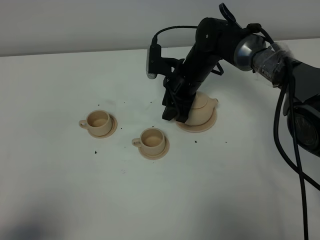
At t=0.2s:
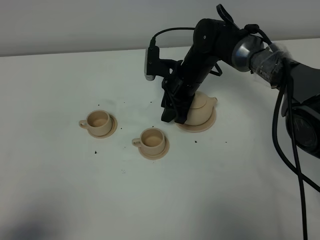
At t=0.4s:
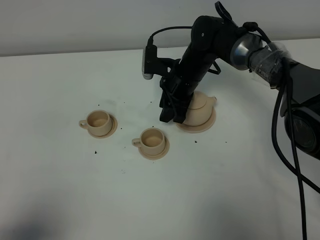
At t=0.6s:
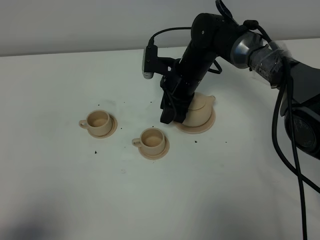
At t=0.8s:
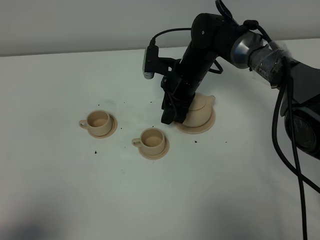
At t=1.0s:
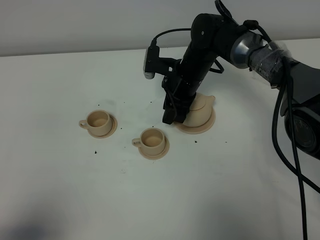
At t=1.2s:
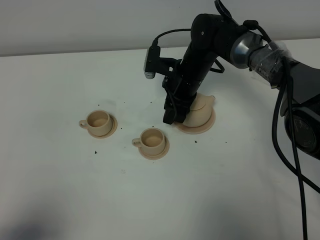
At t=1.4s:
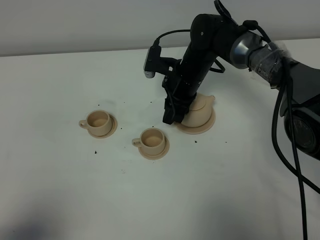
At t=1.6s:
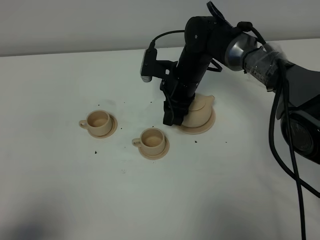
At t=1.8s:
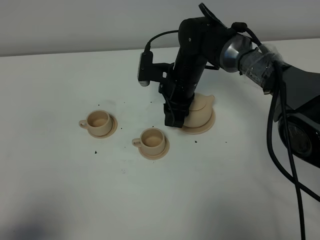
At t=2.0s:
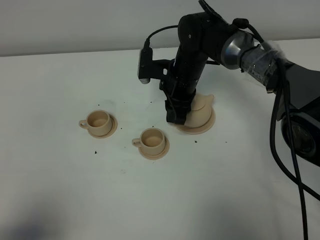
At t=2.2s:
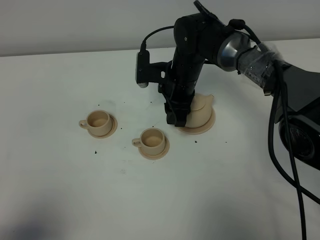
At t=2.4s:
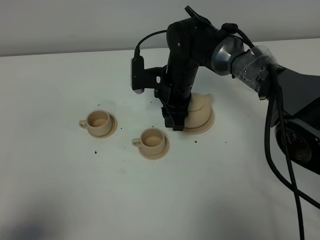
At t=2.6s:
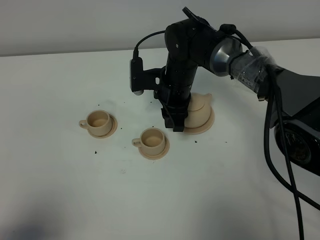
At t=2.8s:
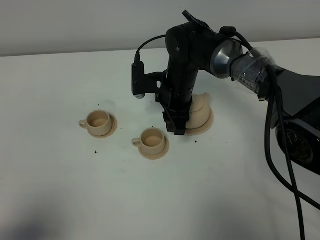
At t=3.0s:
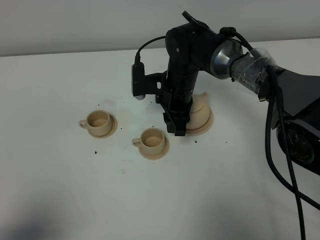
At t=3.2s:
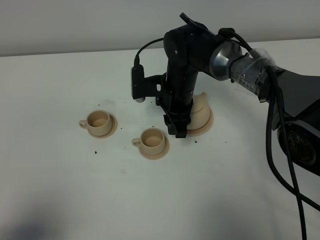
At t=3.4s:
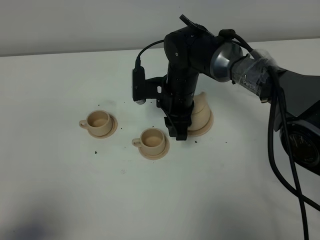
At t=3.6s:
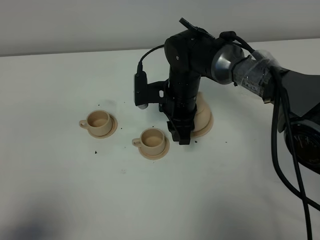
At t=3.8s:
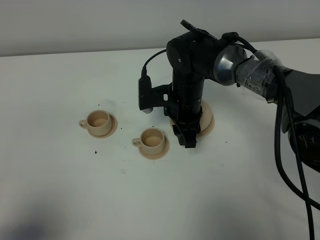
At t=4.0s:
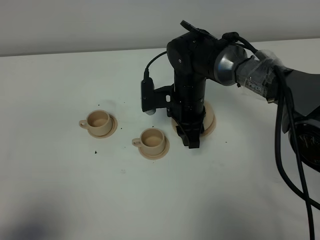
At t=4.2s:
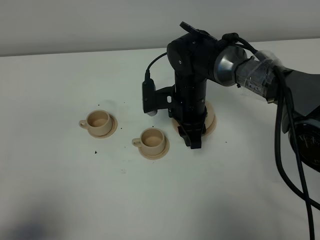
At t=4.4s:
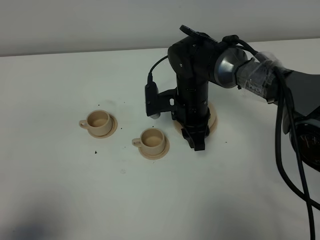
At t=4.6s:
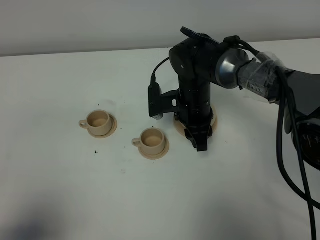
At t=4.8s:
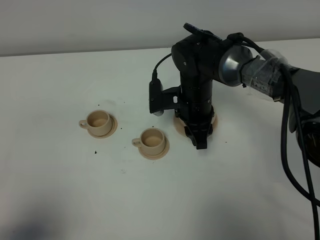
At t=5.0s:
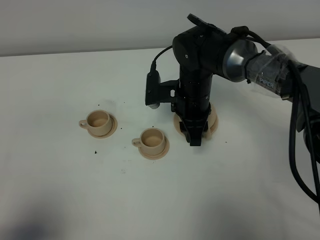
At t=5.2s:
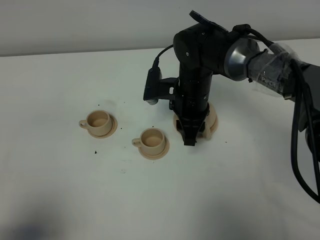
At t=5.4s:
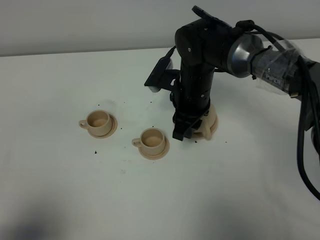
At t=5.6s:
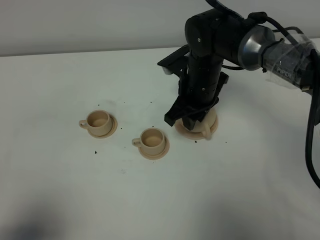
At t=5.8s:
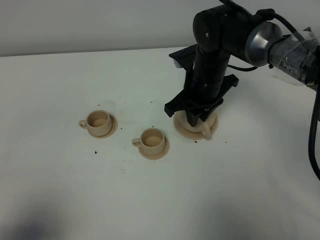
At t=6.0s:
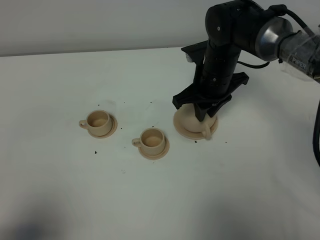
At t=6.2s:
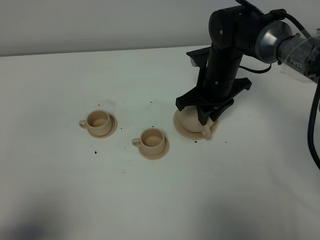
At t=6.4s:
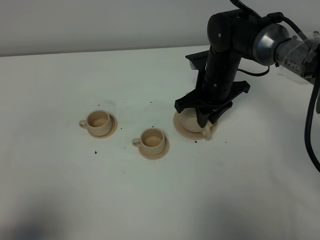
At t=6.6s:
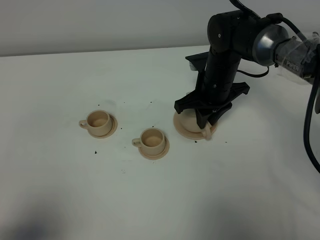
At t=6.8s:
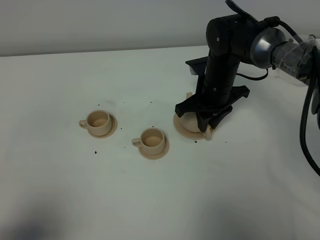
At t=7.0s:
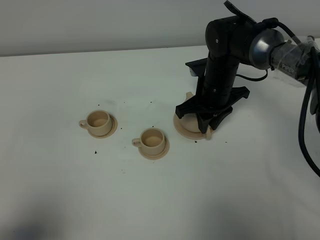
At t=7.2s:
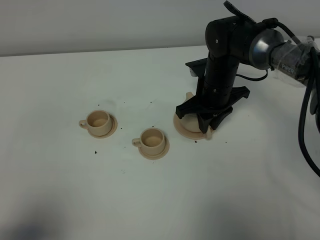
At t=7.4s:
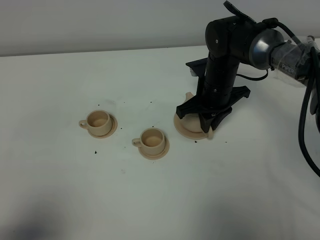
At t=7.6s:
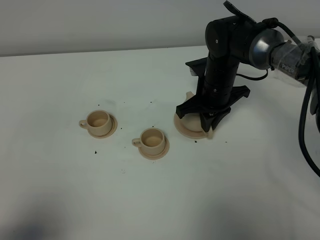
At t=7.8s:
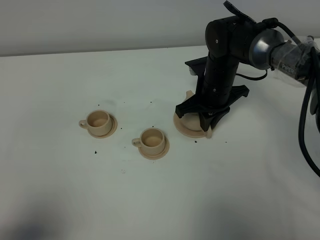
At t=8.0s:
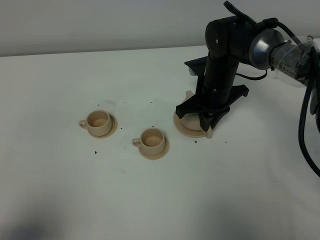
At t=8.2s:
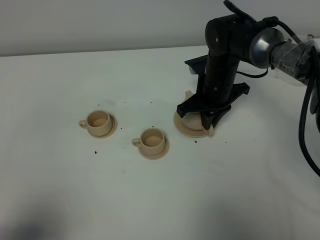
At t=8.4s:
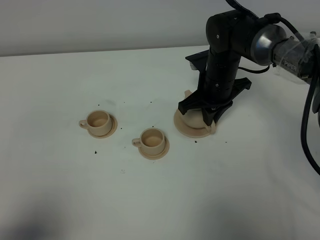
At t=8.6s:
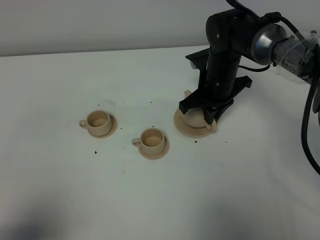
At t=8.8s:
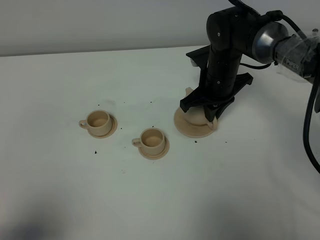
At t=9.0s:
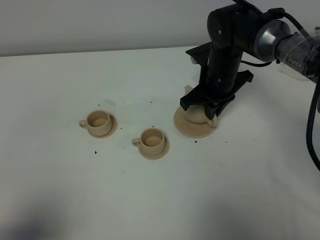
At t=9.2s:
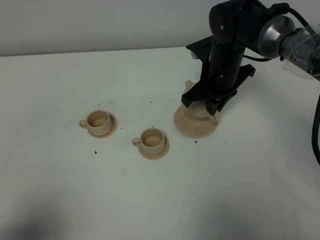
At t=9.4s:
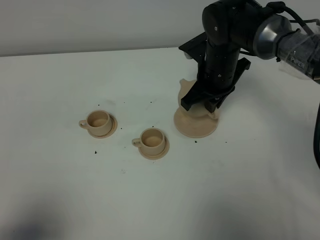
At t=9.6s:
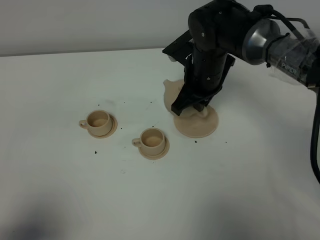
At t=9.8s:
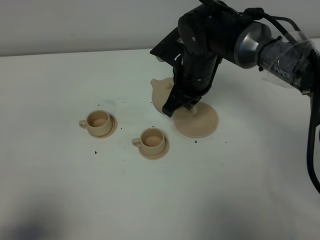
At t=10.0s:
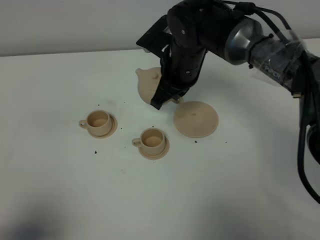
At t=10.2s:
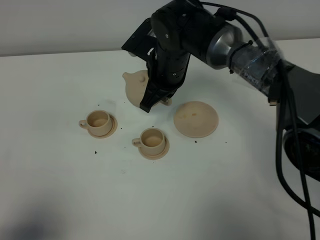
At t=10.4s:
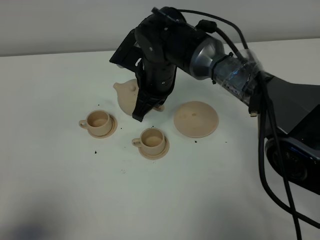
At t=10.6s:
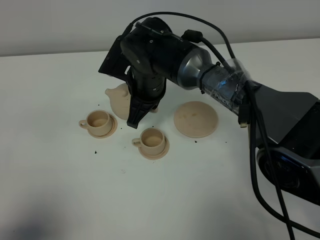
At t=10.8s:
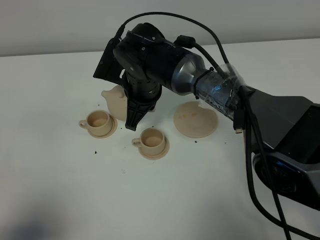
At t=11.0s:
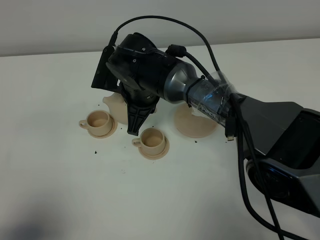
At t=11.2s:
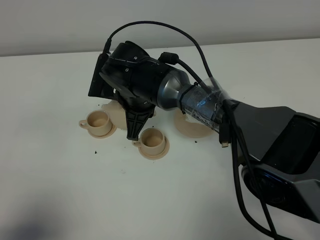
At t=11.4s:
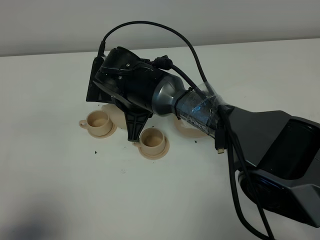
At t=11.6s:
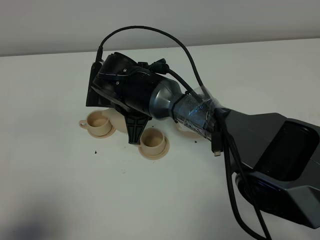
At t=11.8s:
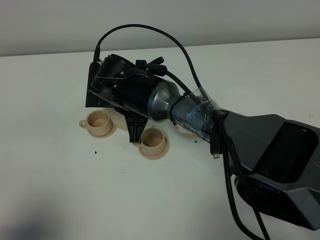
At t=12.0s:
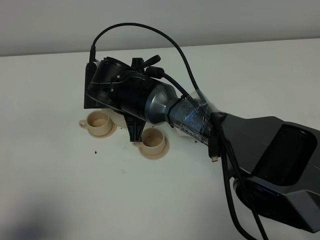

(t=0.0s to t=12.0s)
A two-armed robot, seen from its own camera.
Task of the whole recording: grasp the brown teapot and pour the tea into the two brown teacups one by one, put the brown teapot back in its original place.
Step, t=0.0s - t=8.2s: Pick up the teapot with the right gripper.
t=0.0s - t=3.0s: The grippers stay close to where they were, moving slightly.
t=3.0s - t=4.4s: The grippers stay close to where they were, moving slightly.
t=4.4s - t=6.0s: The right gripper changes place by approximately 5 cm, and closes up.
t=6.0s - t=7.6s: The right gripper closes up.
t=7.6s - t=9.0s: The grippers move only a little.
t=9.0s - t=10.4s: The right gripper shifts roughly 10 cm to the left.
t=10.4s - t=12.0s: The right gripper shifts by about 5 cm.

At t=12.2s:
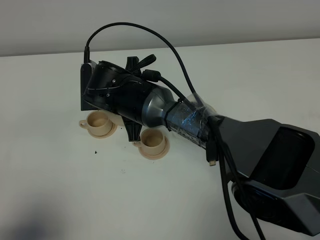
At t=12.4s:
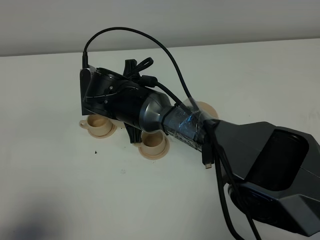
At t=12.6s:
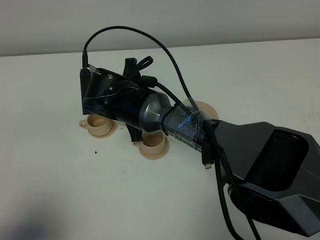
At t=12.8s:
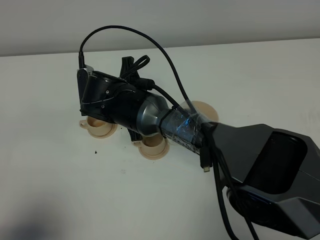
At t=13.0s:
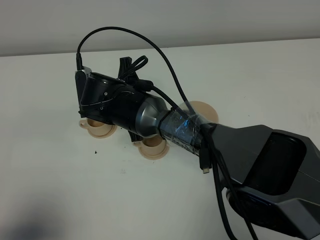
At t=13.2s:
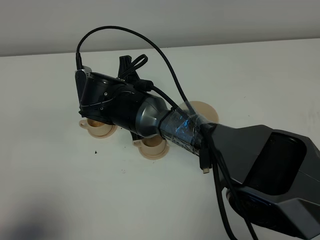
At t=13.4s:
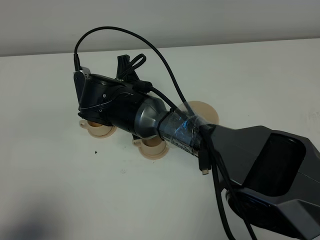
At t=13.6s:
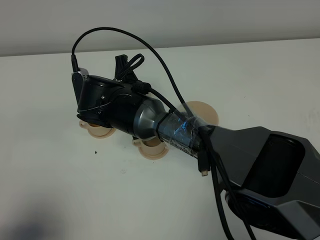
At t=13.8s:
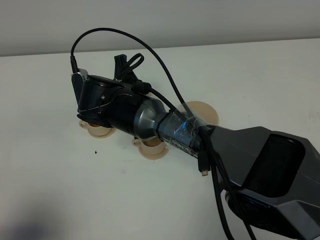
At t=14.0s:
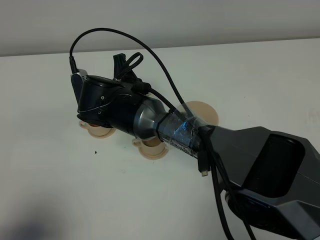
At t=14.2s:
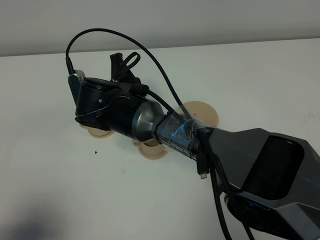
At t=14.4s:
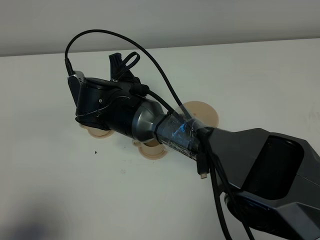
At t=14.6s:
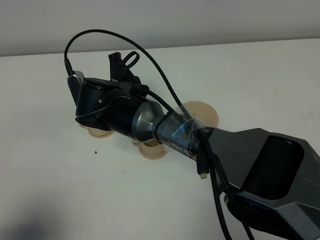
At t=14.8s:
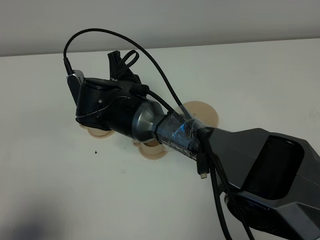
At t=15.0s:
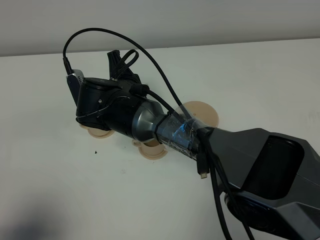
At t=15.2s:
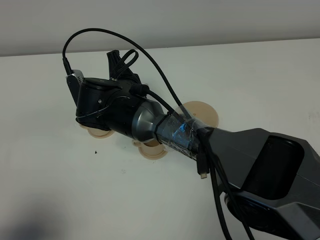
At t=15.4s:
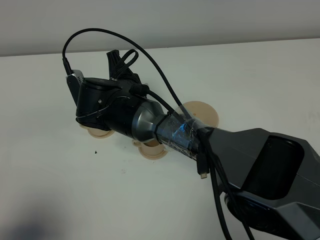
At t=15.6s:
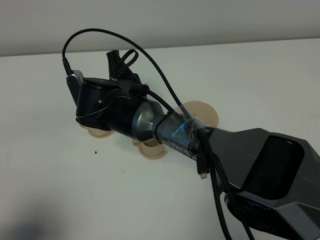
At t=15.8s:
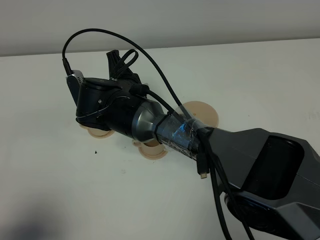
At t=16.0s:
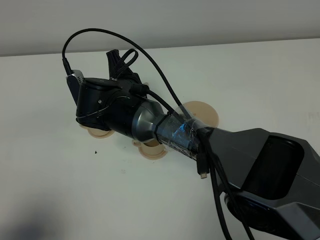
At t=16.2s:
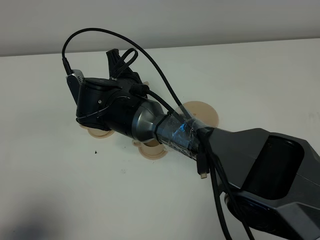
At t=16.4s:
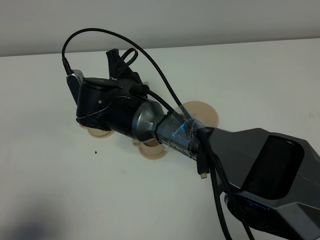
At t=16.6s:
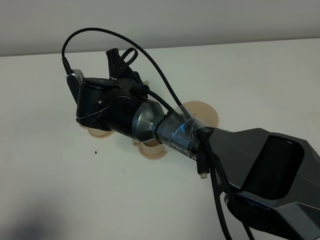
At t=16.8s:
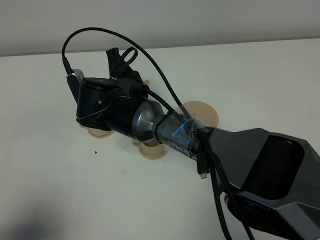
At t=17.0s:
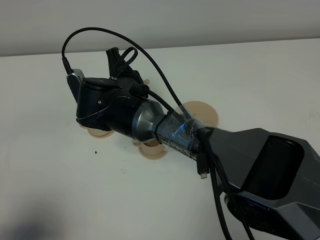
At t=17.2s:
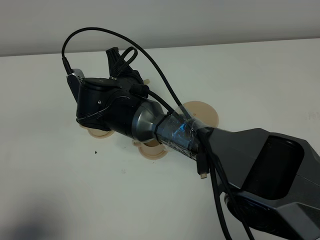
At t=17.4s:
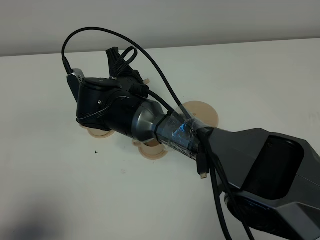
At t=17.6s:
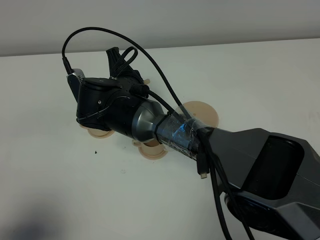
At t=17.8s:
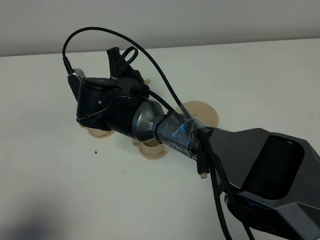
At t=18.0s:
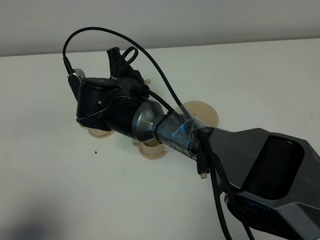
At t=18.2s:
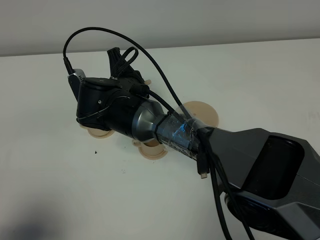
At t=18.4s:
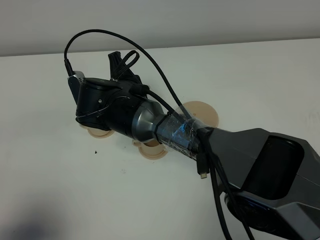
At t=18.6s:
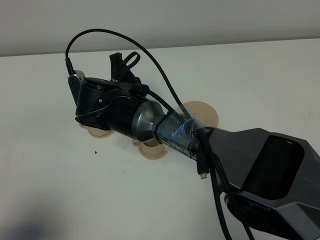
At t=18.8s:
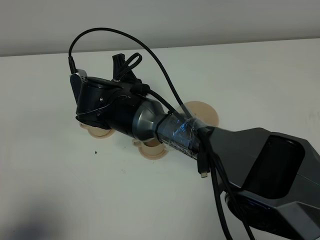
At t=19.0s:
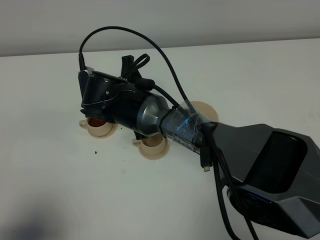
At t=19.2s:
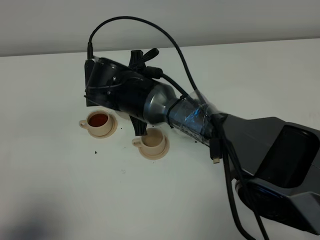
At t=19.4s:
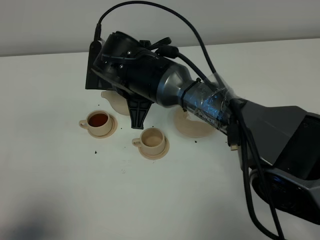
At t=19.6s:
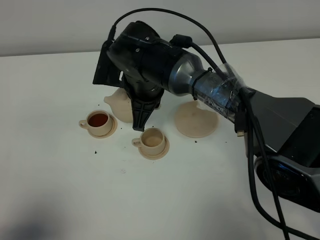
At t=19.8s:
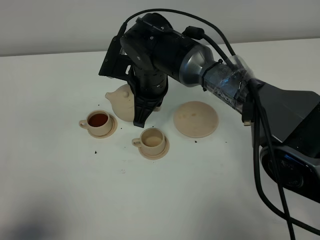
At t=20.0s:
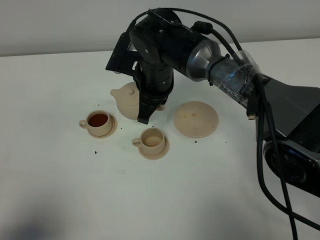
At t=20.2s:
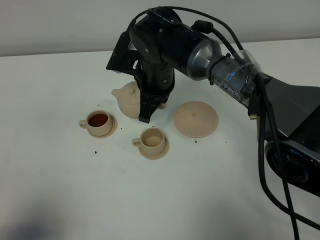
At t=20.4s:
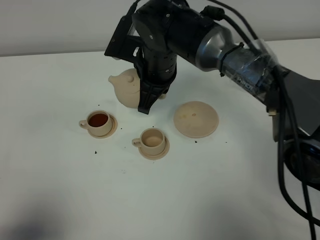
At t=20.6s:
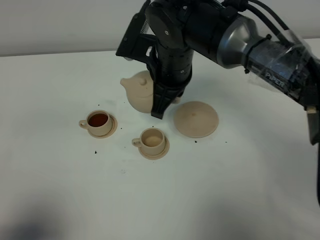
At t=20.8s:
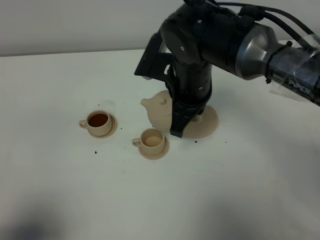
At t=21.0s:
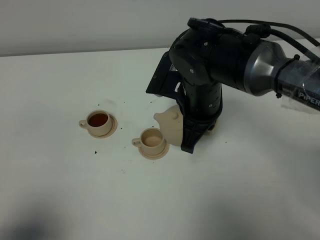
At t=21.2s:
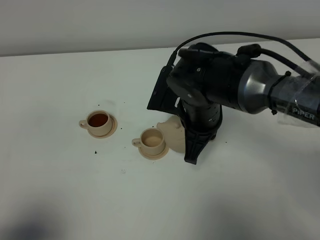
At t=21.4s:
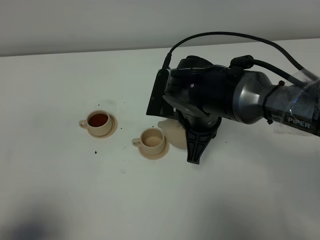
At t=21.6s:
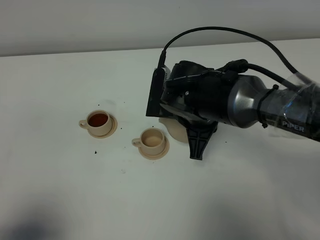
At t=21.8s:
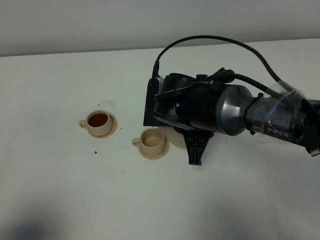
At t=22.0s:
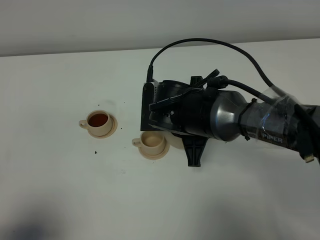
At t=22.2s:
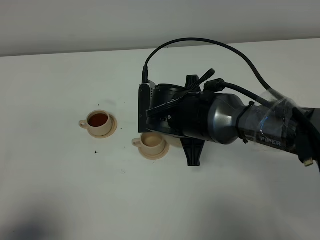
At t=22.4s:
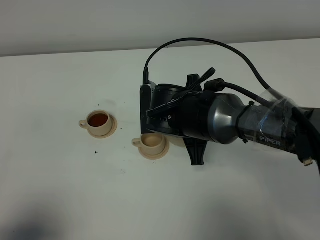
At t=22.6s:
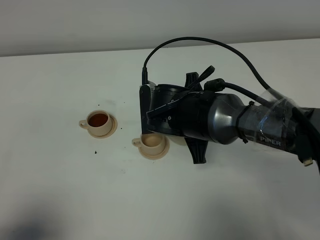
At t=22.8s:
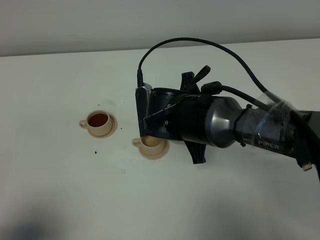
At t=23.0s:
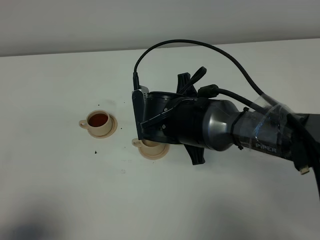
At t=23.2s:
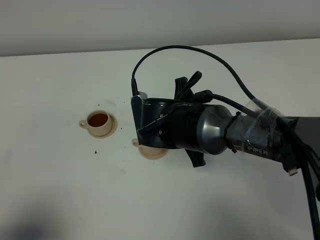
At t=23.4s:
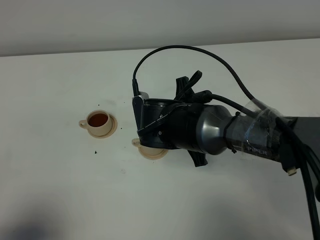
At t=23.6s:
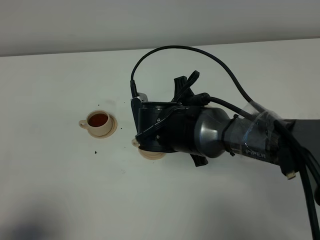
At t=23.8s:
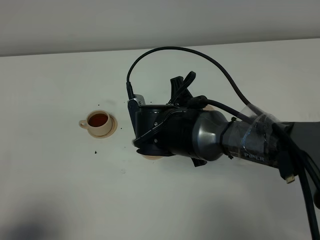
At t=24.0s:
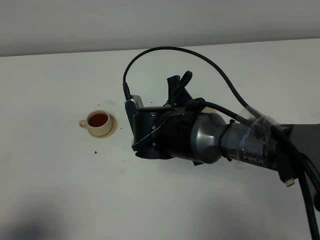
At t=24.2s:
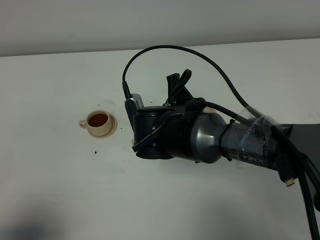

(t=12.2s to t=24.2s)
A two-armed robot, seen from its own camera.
Task of the whole recording: grasp the brown teapot and pour the tea into the two brown teacups one by one, put the brown teapot back in its original place.
Step, t=12.2s - t=19.2s: Pour tea into the teacup with the right gripper.
t=12.2s - t=13.8s: There are only small adjustments of the grippers.
t=13.8s - t=15.2s: The grippers stay close to where they were, moving slightly.
t=15.2s - t=18.2s: The two grippers keep their place.
t=18.2s - t=19.8s: The right gripper moves to the right, roughly 5 cm.
t=19.8s - t=21.2s: The right gripper heads to the right and backward, covering roughly 10 cm.
t=22.6s - t=24.2s: The grippers make only small movements.
